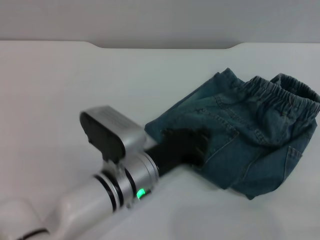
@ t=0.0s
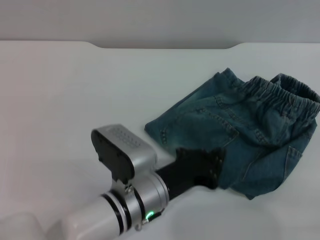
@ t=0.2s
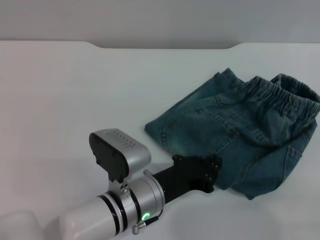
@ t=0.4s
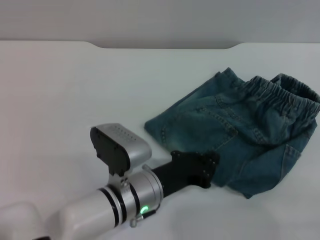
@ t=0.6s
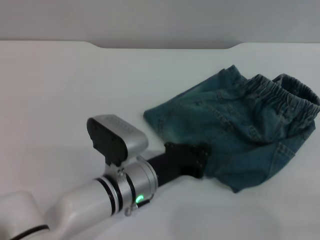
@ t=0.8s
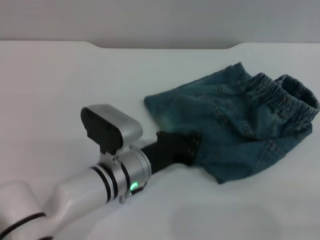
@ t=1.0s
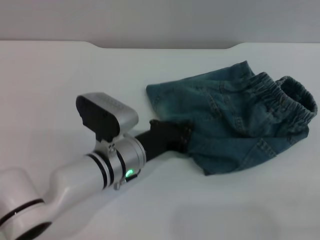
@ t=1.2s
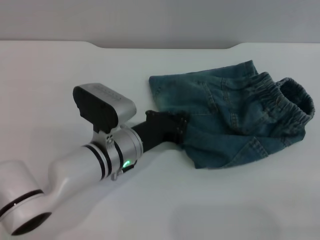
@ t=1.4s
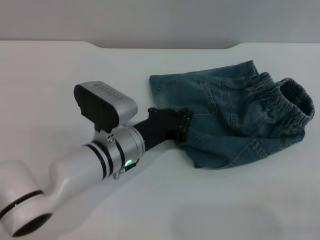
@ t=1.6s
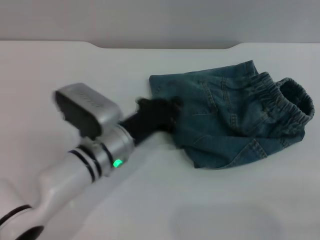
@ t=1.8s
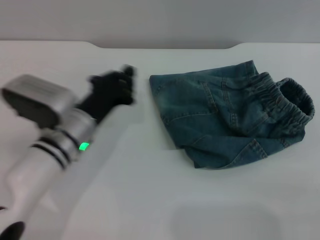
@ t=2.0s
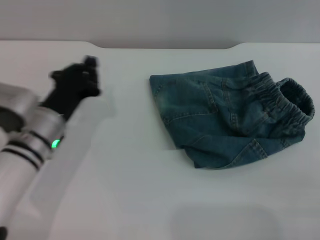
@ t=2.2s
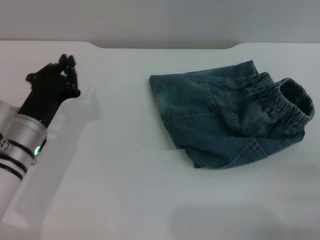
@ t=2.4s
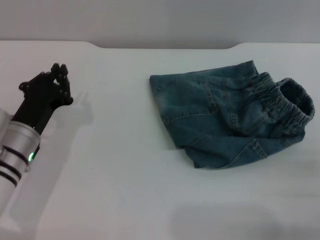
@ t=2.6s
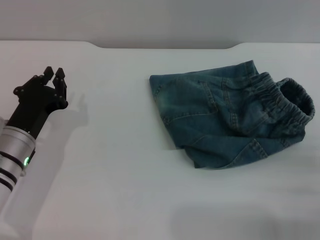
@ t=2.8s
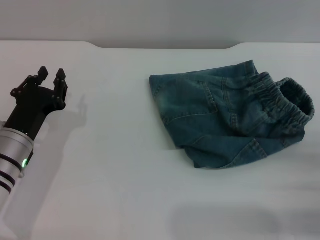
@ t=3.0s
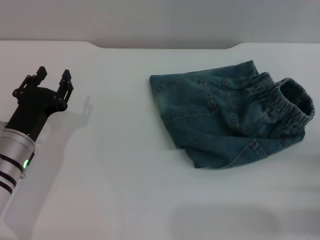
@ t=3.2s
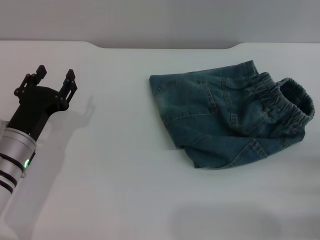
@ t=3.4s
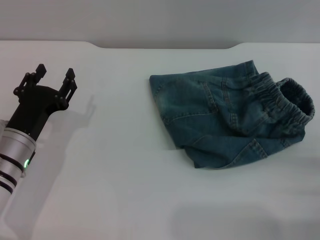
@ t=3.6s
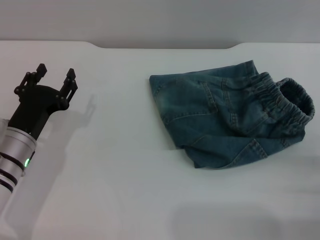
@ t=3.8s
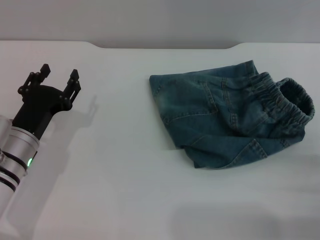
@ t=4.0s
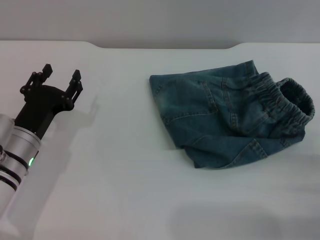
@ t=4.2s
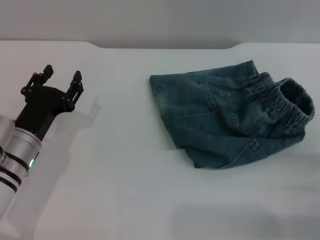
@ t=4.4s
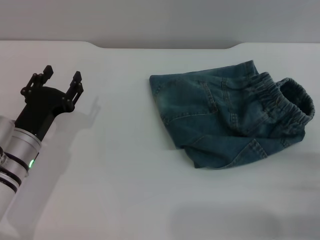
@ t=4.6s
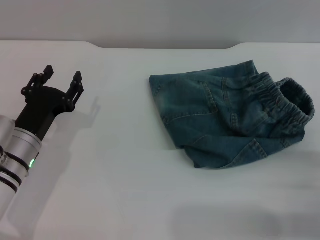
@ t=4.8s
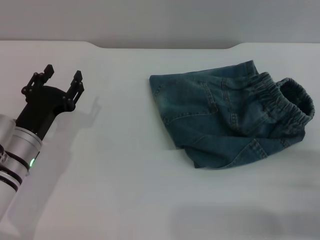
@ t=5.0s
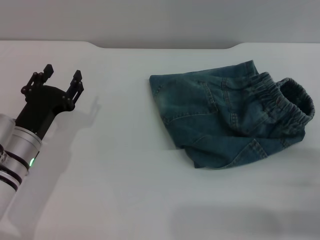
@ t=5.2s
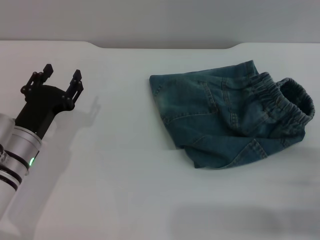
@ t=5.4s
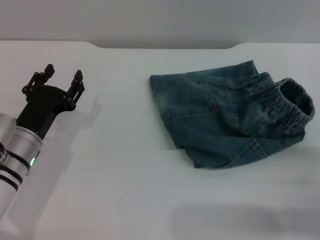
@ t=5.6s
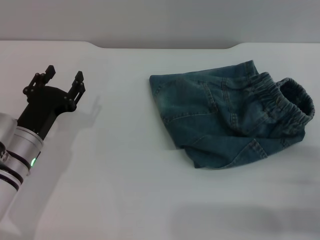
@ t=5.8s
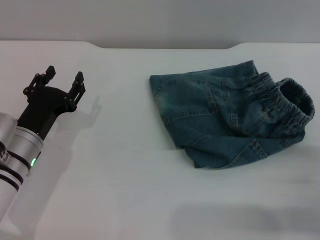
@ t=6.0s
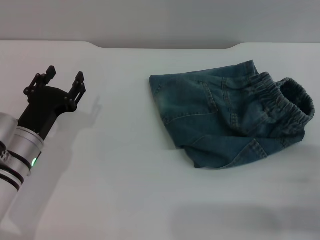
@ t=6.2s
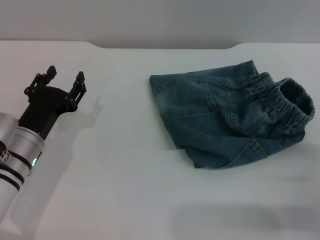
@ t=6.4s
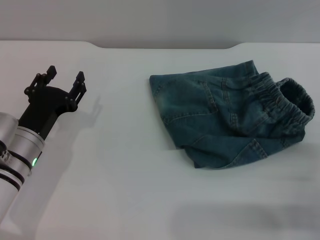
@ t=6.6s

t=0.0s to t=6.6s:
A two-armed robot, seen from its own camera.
Step, t=0.0s to t=2.2s: Place the folded trousers onto the center area with the left grippers.
t=0.0s to t=1.6s: The left gripper ends up approximately 5 cm from where it was.
t=1.6s to t=3.2s: The left gripper moves to the left, about 15 cm. Meanwhile the right gripper shifts approximately 10 cm forward.
t=3.2s to t=5.0s: The left gripper opens.
t=5.0s to t=6.6s: Both grippers stay put.
